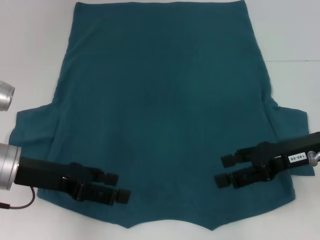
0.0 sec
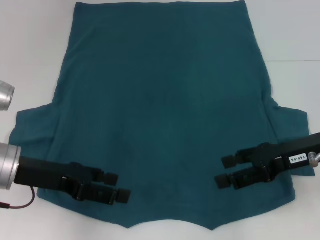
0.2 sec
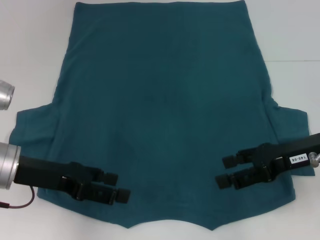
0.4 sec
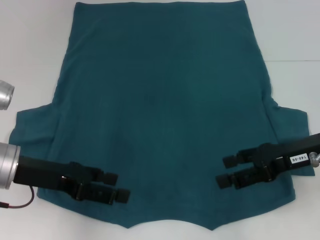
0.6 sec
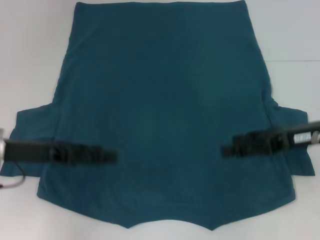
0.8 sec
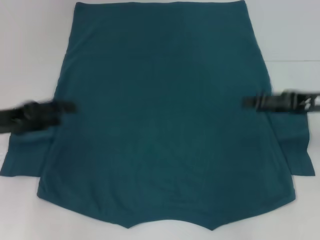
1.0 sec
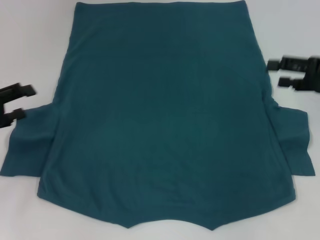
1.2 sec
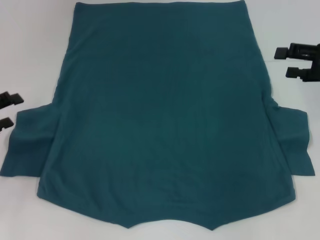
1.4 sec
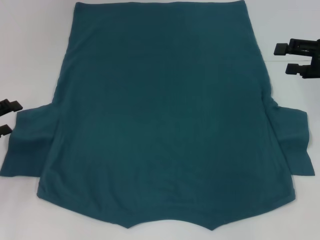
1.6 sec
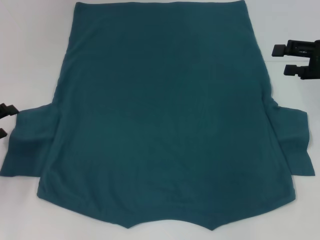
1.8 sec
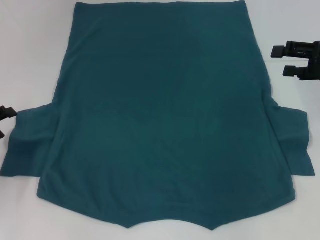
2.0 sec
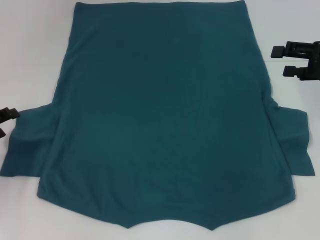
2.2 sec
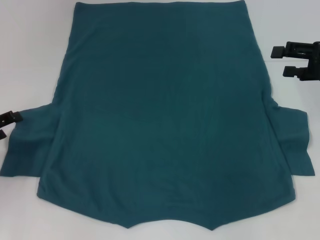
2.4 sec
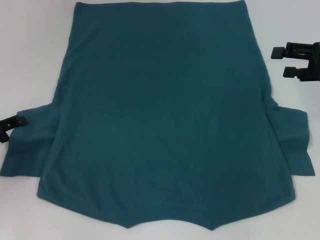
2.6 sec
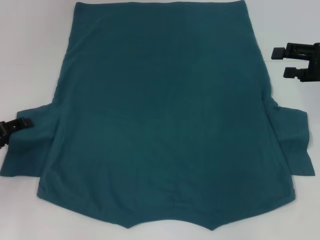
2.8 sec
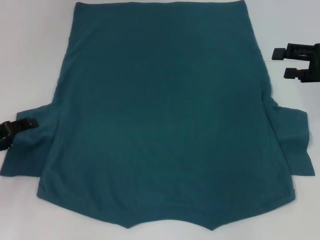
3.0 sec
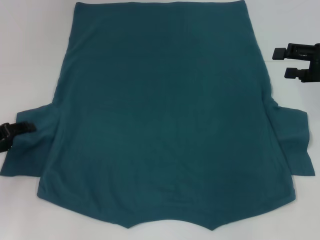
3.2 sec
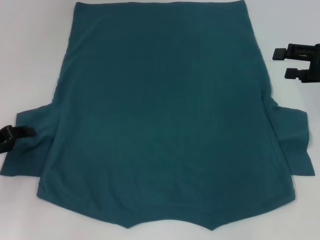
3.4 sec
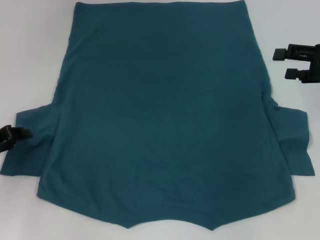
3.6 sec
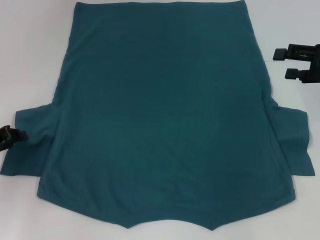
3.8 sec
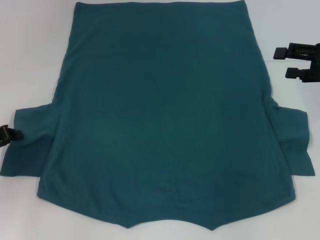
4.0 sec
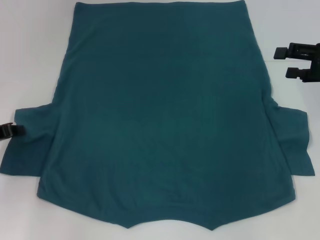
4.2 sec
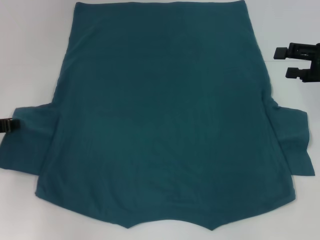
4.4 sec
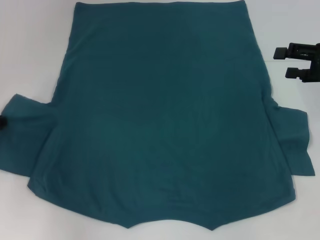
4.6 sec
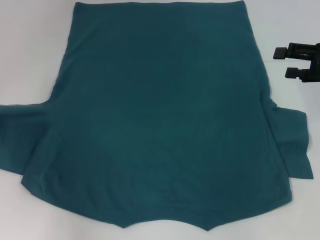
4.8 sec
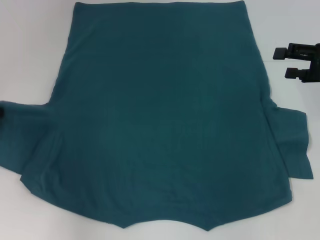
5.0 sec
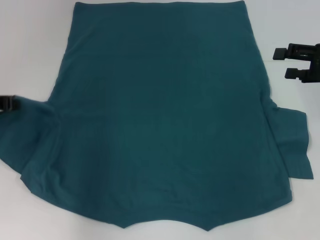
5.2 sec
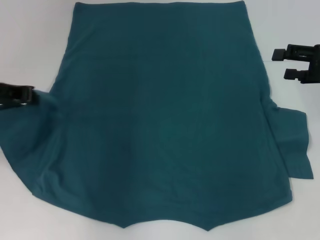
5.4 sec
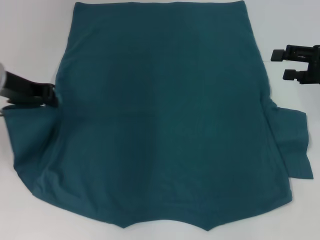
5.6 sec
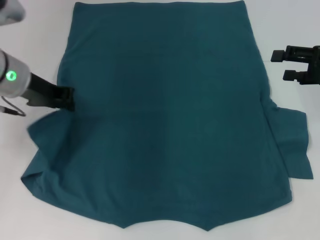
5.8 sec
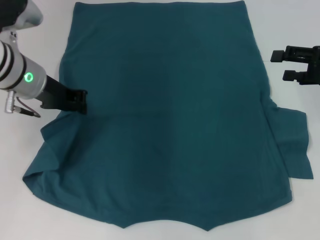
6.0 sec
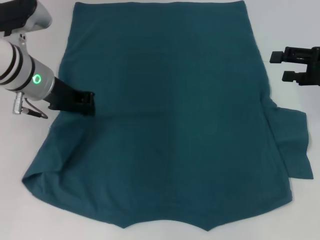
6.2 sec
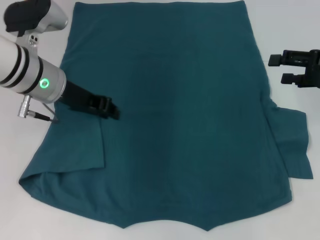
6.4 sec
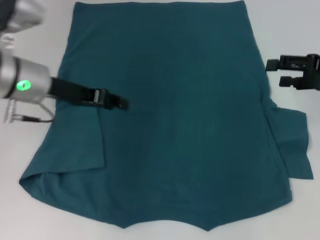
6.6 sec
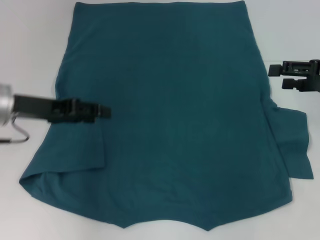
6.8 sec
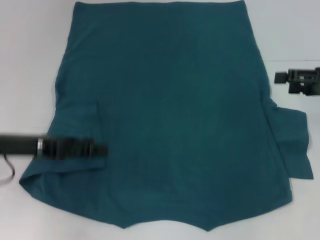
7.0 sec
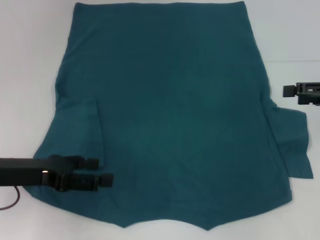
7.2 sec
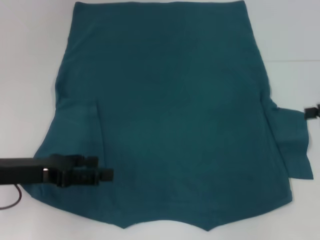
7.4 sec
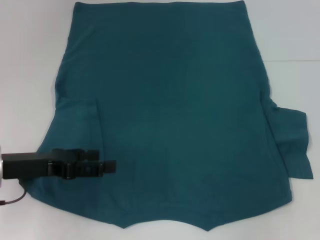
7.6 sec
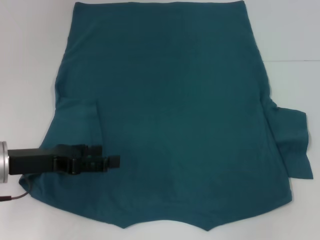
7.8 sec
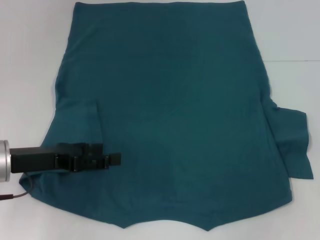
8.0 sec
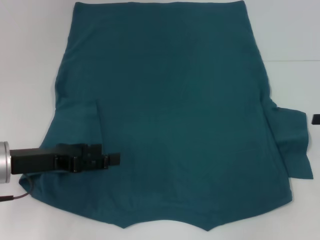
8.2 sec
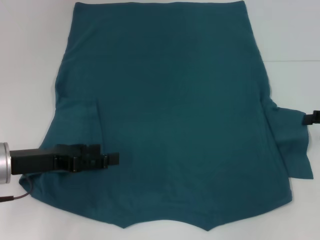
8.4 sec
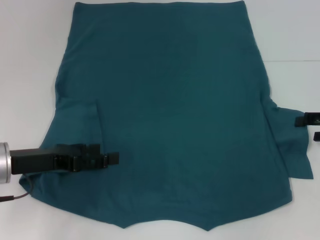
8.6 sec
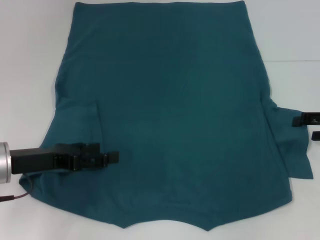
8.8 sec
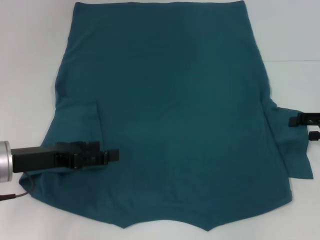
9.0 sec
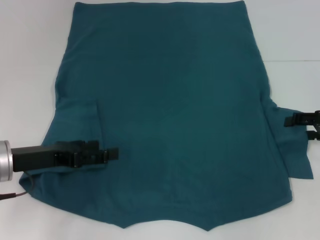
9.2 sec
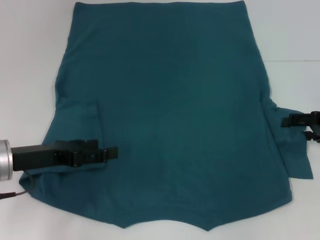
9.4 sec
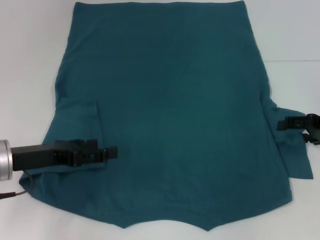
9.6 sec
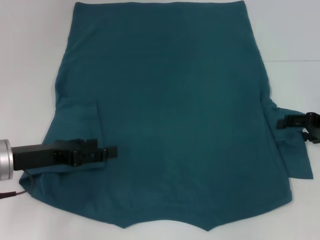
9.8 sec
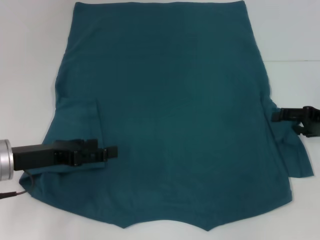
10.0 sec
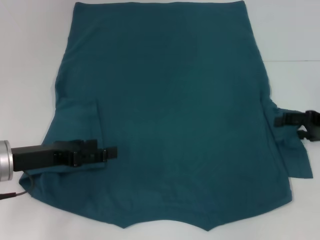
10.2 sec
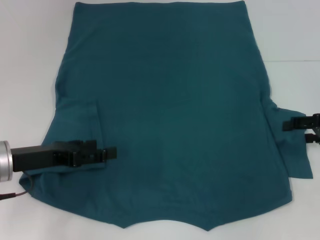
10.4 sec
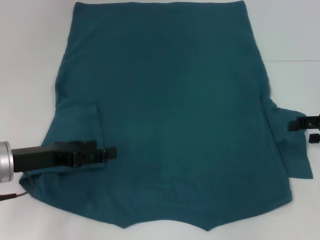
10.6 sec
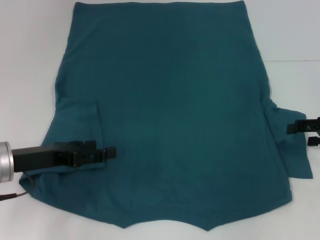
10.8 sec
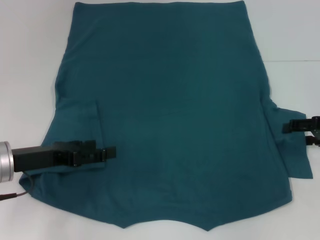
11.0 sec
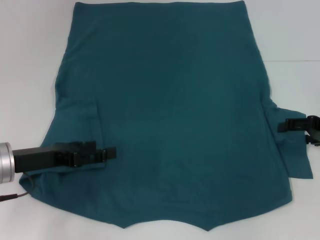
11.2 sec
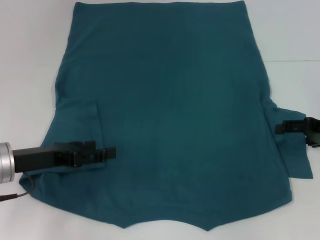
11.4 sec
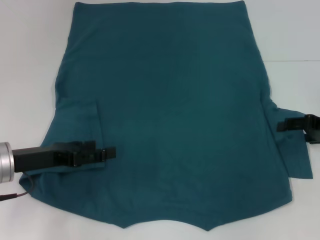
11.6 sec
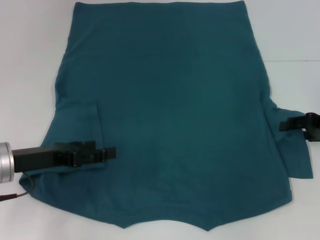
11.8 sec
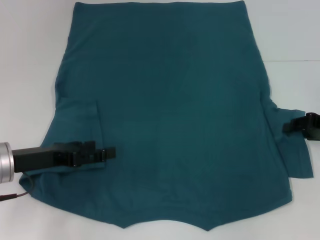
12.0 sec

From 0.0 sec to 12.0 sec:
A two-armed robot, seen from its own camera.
Step, from 0.0 sec to 7.2 sec: Fold the bottom left sleeve with your left hand.
From 0.0 sec to 1.6 sec: The right gripper heads to the right and forward, covering some 10 cm, while the left gripper is displaced to the left by about 15 cm.
From 1.6 sec to 3.0 sec: The grippers make only small movements.
From 3.0 sec to 4.4 sec: The left gripper closes up.
From 4.4 sec to 6.0 sec: The left gripper goes some 15 cm to the right, upward and forward.
From 6.0 sec to 7.6 sec: The left gripper goes about 15 cm backward, downward and to the left, and opens, while the right gripper moves to the right and backward, roughly 10 cm.
From 7.6 sec to 9.0 sec: The right gripper travels downward by some 5 cm.
From 9.0 sec to 12.0 sec: The grippers move only a little.

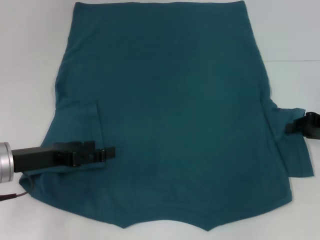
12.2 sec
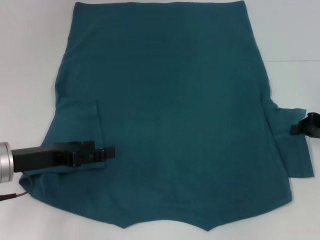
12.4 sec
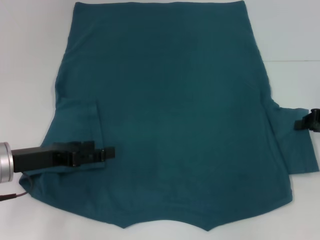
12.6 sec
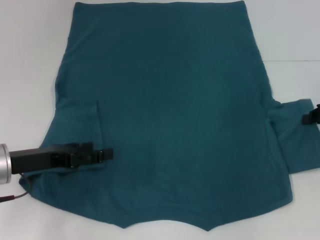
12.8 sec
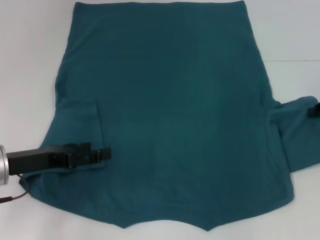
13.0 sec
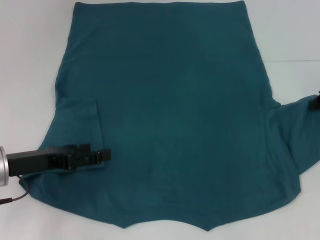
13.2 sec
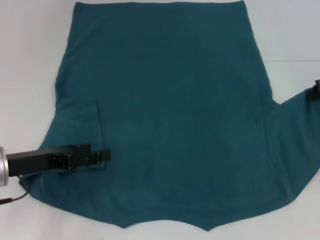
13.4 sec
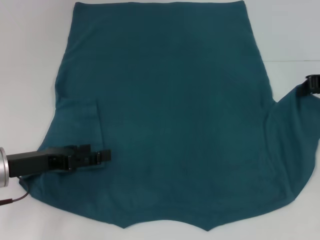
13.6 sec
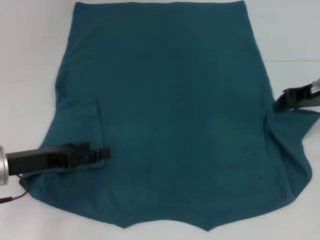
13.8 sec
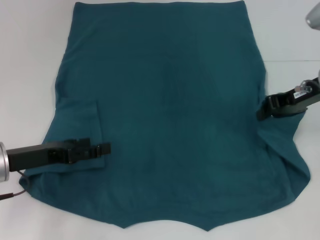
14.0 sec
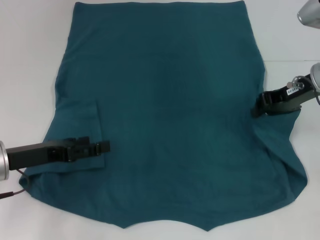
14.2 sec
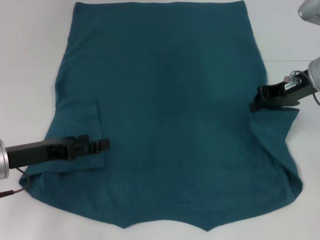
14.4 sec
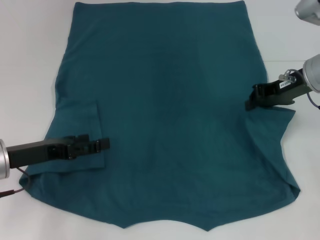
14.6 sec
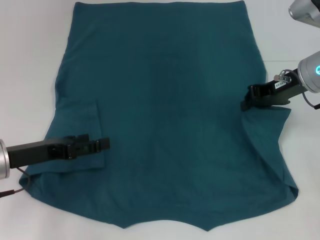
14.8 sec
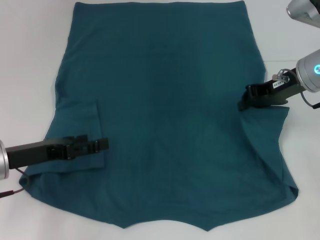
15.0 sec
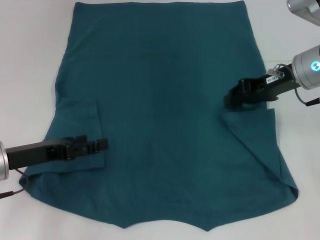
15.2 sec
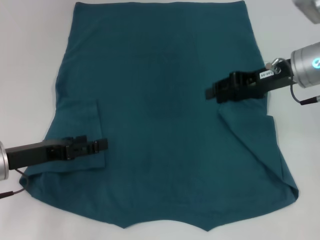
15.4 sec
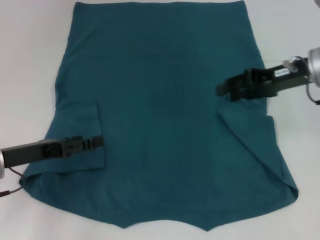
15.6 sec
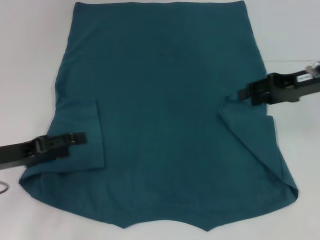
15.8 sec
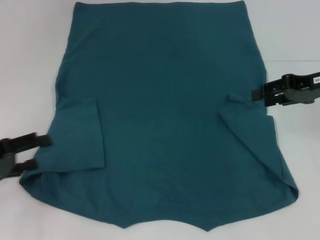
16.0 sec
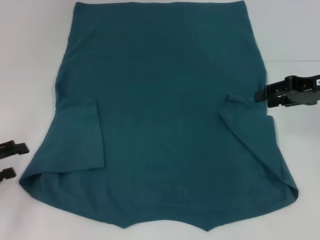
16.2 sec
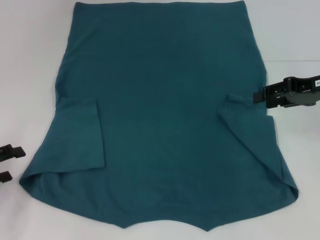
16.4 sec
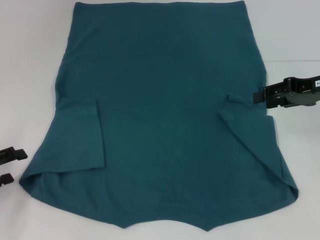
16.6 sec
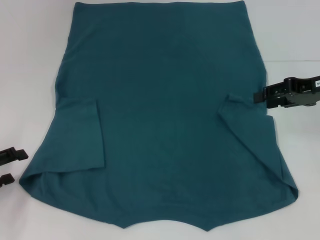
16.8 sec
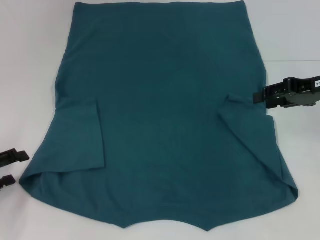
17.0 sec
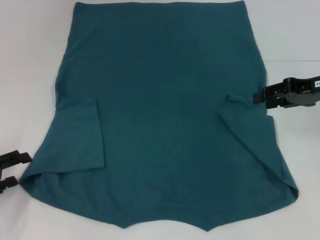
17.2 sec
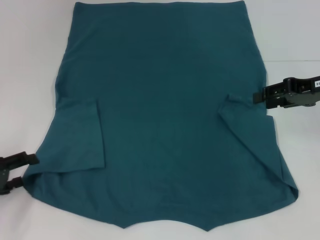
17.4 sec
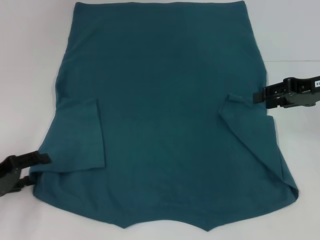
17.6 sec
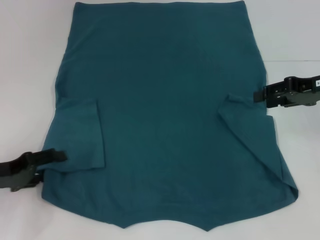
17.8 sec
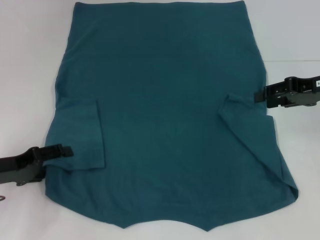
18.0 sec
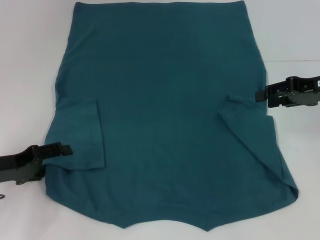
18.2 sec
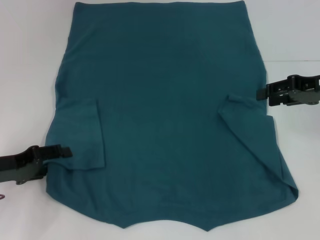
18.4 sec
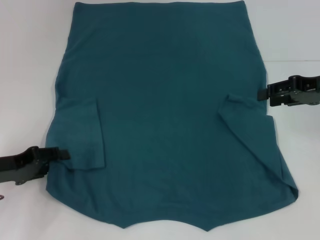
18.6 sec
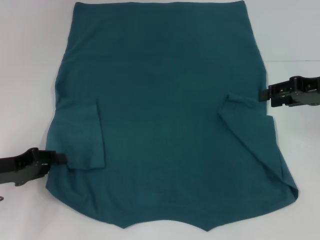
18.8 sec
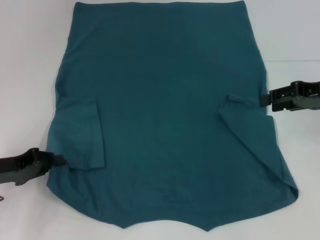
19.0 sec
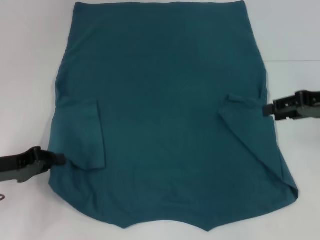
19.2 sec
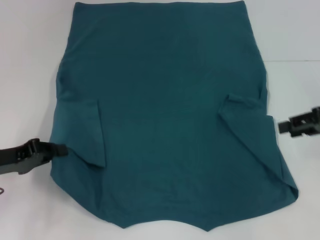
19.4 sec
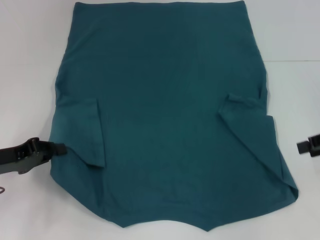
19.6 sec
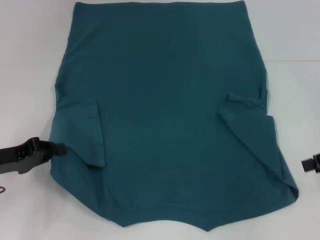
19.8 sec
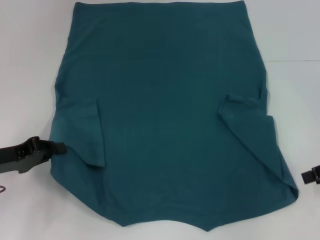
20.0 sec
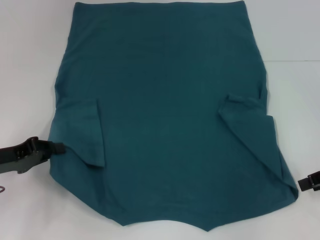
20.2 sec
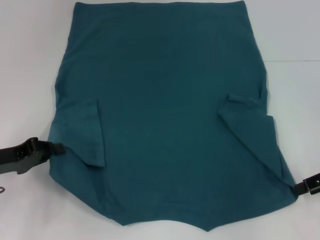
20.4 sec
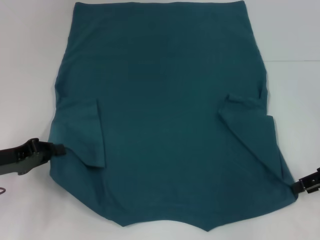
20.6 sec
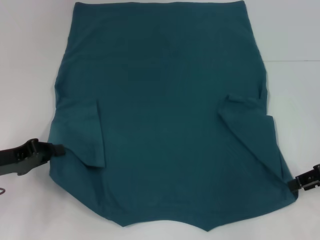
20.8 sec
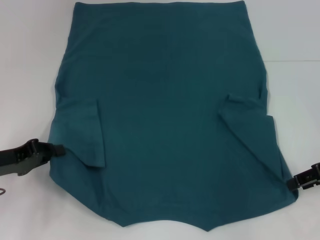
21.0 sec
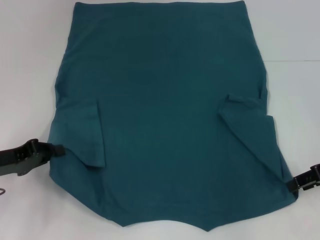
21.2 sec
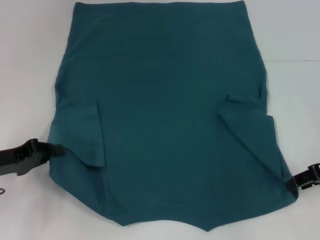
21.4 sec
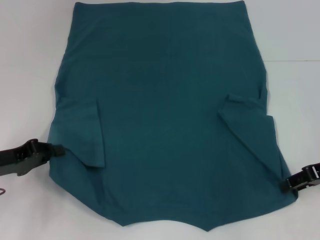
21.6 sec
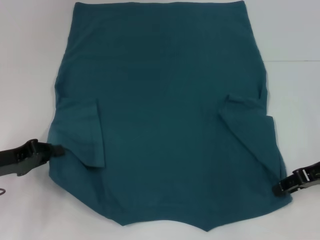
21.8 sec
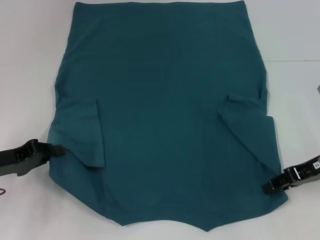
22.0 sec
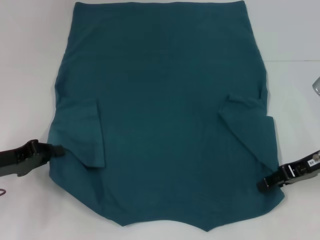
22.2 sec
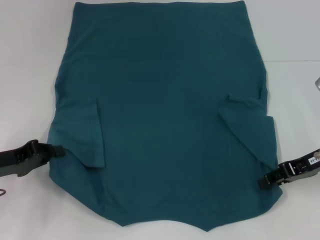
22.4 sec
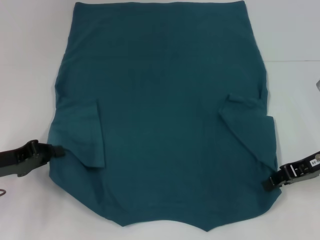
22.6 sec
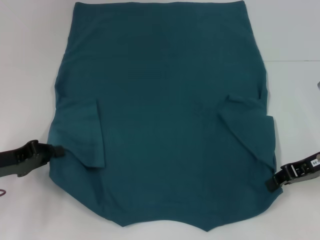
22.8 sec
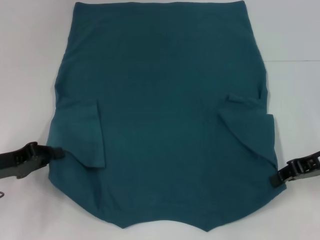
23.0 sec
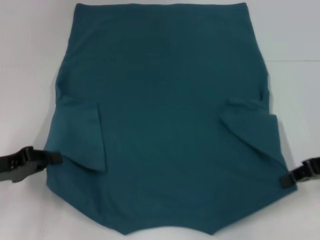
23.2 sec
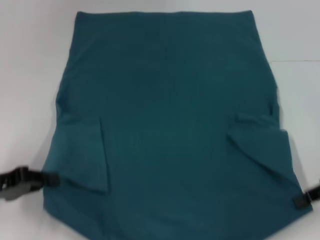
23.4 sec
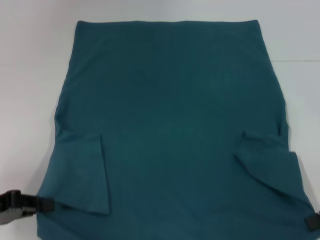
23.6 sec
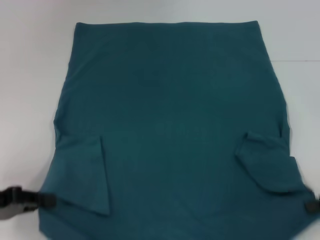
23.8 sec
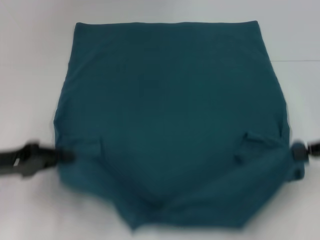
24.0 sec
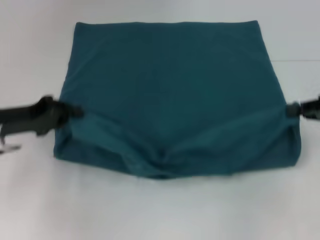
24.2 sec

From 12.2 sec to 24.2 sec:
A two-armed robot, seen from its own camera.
Step, from 12.2 sec to 16.4 sec: Fold the bottom right sleeve to the right.
Step, from 16.6 sec to 19.4 sec: Grab the bottom left corner with your left hand.
Step, from 19.6 sec to 23.0 sec: Grab the bottom right corner with your right hand.
From 12.2 sec to 13.8 sec: The right gripper shifts approximately 10 cm upward, to the left and forward, and closes its fingers.
From 13.8 sec to 15.2 sec: The right gripper is displaced to the left by about 5 cm.
From 15.2 sec to 16.6 sec: The left gripper moves to the left, some 10 cm. The right gripper heads to the right, covering approximately 5 cm, and opens.
From 16.6 sec to 18.2 sec: The left gripper heads to the right, covering roughly 5 cm.
From 18.2 sec to 19.8 sec: The right gripper heads backward and to the right, covering roughly 10 cm, while the left gripper closes up.
From 19.8 sec to 21.2 sec: There are only small adjustments of the grippers.
From 21.2 sec to 22.6 sec: The grippers move only a little.
From 22.6 sec to 24.2 sec: The right gripper moves to the right, roughly 5 cm, and closes its fingers; the left gripper changes place by roughly 5 cm.
